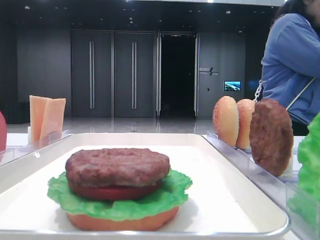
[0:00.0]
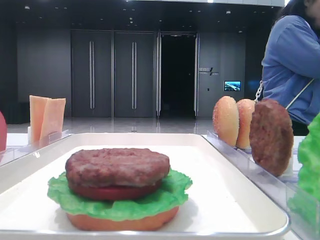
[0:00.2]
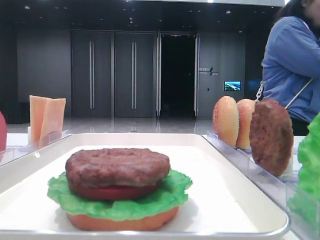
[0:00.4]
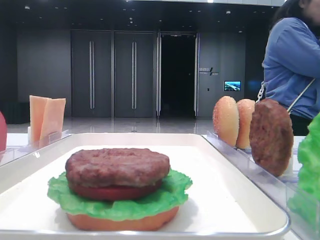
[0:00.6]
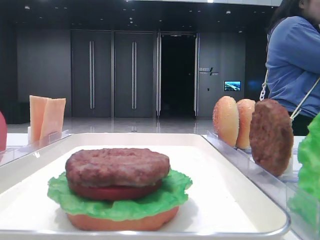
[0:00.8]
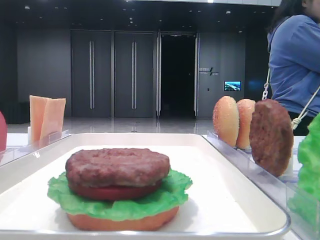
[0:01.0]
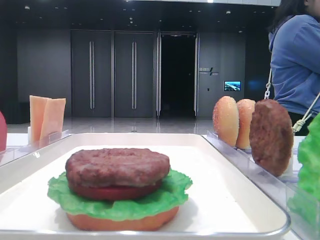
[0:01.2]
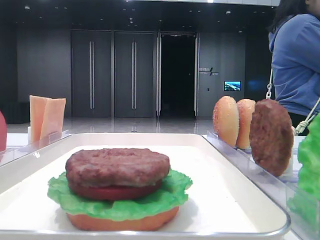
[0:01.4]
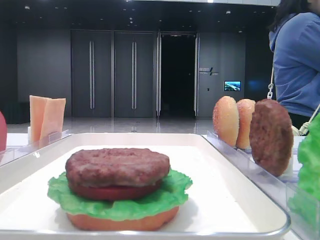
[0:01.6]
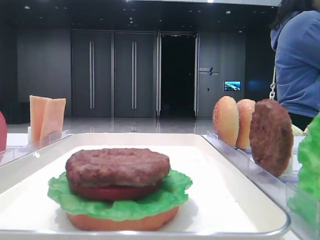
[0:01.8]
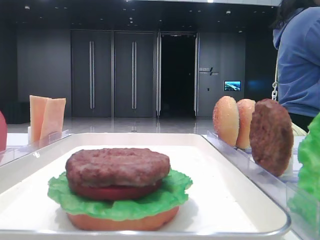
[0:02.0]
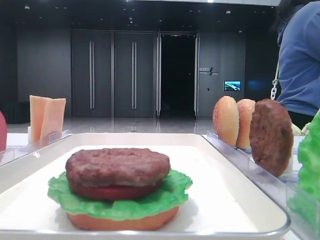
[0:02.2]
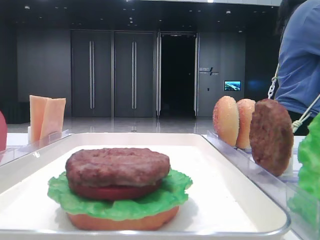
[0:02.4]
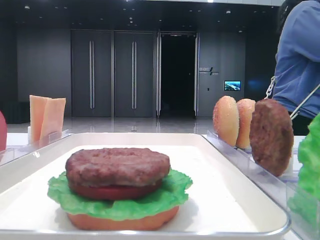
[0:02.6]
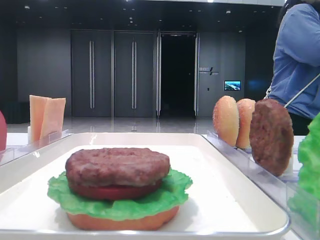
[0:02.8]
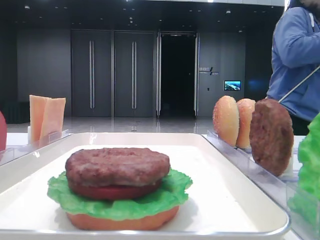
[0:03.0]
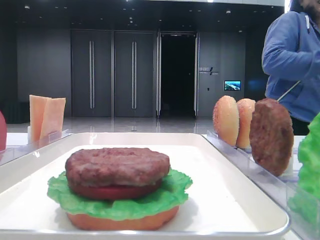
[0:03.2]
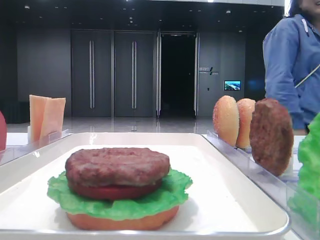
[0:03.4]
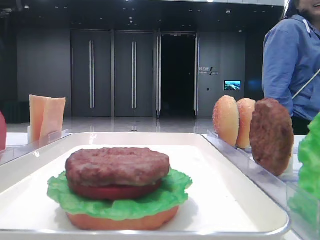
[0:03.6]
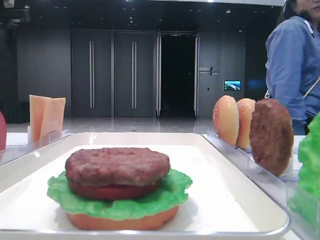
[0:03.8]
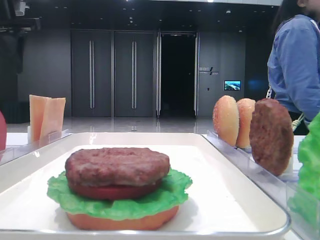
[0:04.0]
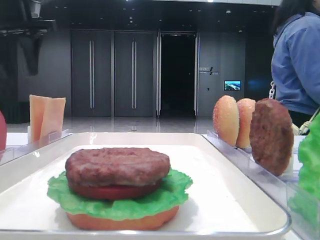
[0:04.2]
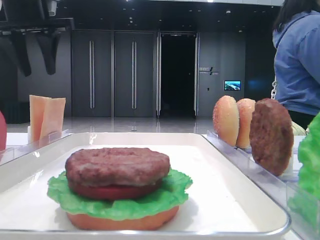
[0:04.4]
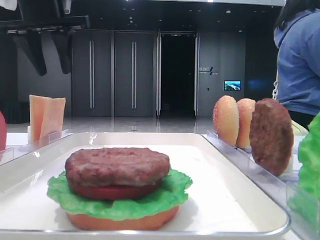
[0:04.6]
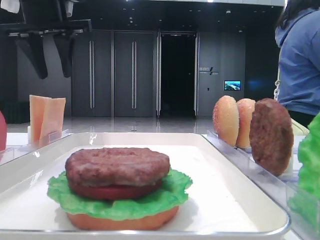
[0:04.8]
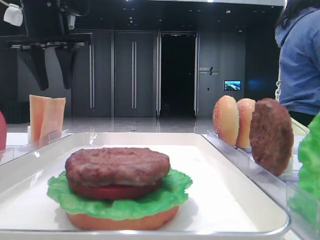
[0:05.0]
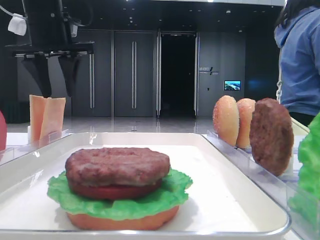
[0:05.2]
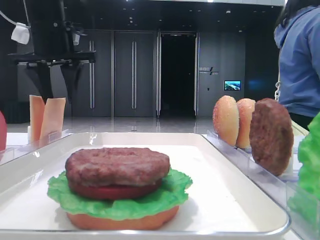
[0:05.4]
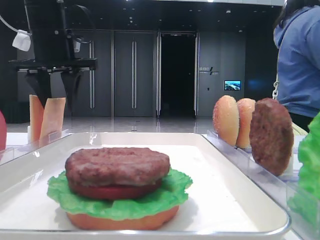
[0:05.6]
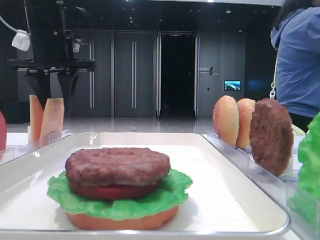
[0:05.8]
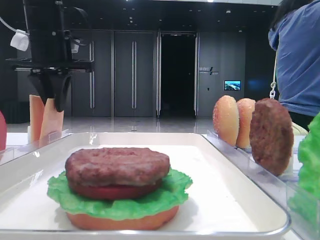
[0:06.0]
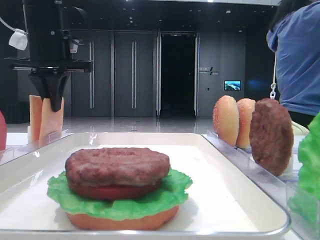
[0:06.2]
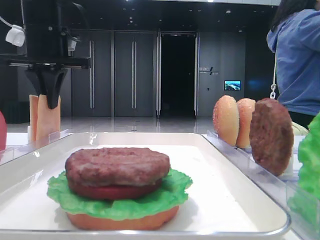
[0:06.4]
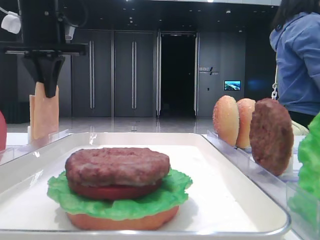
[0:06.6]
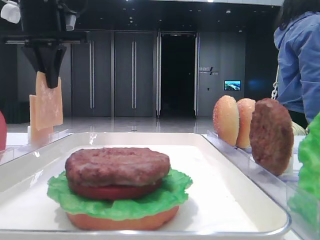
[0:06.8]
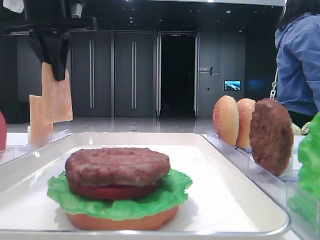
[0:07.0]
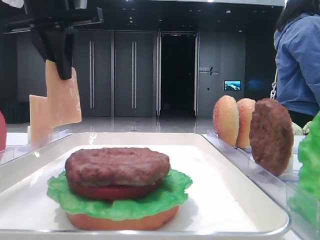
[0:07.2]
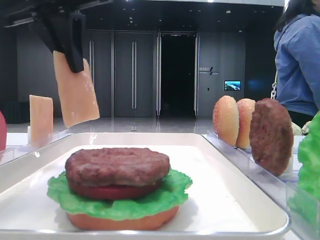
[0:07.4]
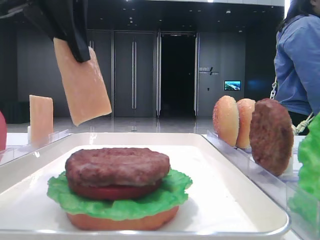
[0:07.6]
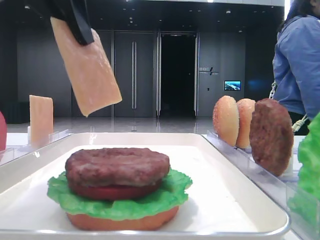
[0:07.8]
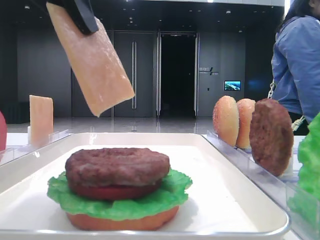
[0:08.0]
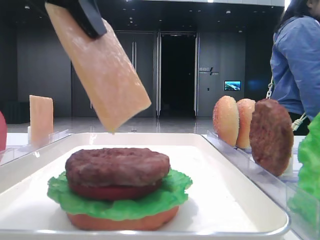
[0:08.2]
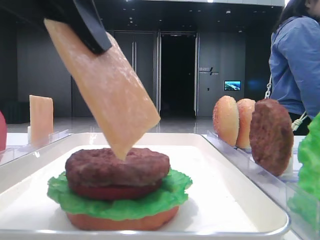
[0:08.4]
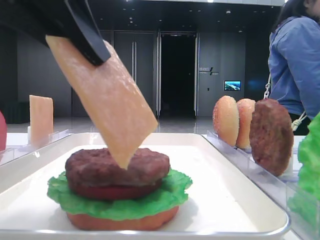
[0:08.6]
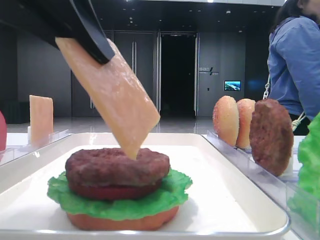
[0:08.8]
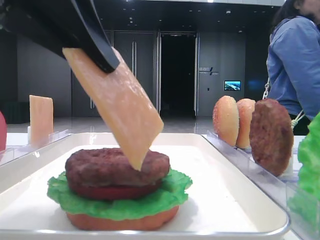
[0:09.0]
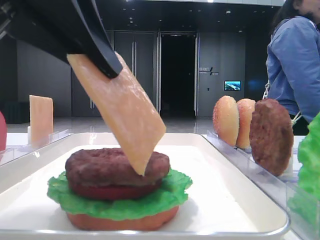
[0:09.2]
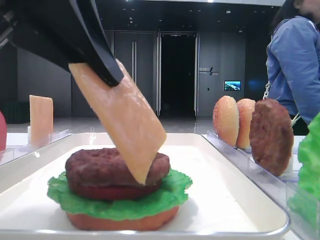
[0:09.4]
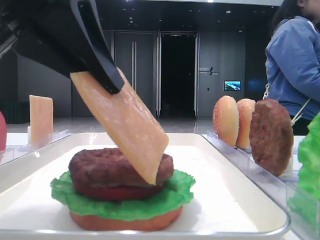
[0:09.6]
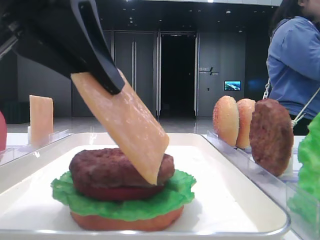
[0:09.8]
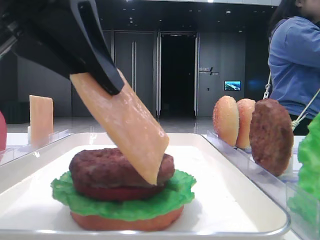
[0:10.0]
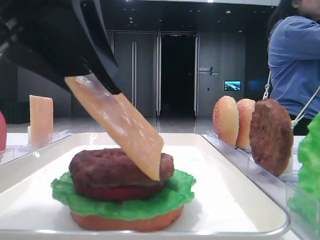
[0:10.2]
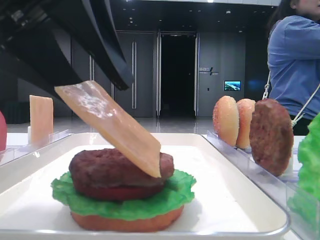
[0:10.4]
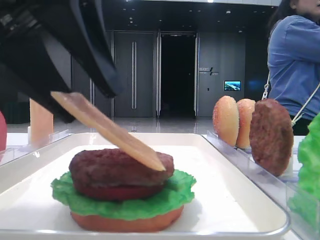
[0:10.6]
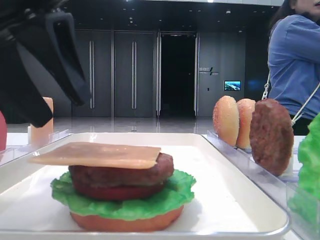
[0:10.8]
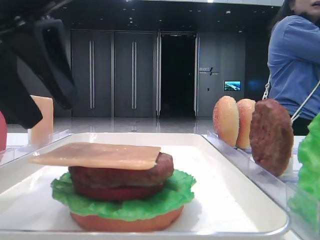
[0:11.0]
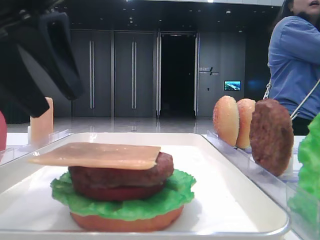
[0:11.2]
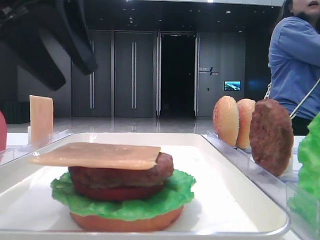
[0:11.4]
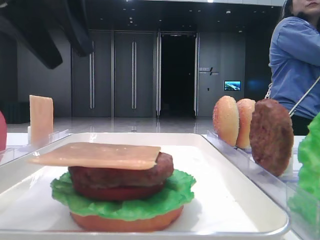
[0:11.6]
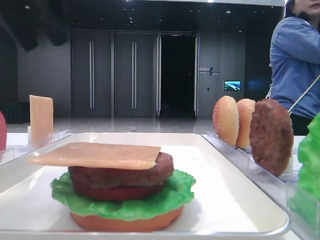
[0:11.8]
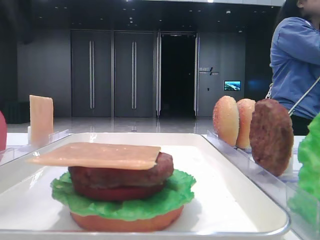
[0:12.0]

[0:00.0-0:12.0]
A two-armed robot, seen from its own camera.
Step, 0:00.0 to 0:06.0: Pick up the cheese slice with the left hand.
Step, 0:06.4 to 0:10.6: Place the cheese slice on the patty with the left hand.
0:03.0 to 0:04.4: The left gripper heads forward and to the right, covering roughly 15 cm.
0:04.4 to 0:06.0: The left gripper is displaced downward by approximately 5 cm, and closes.
0:06.0 to 0:07.6: The left gripper goes about 15 cm backward.
0:07.6 to 0:09.0: The left gripper is displaced backward by about 10 cm.
0:09.0 to 0:10.4: The left gripper opens its fingers.
0:10.4 to 0:12.0: The left gripper heads forward, to the left and upward, covering roughly 15 cm.

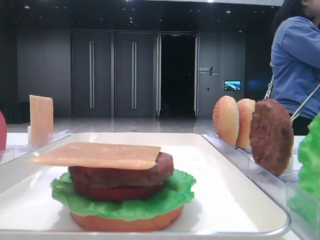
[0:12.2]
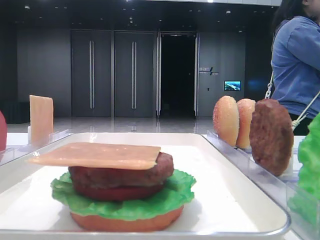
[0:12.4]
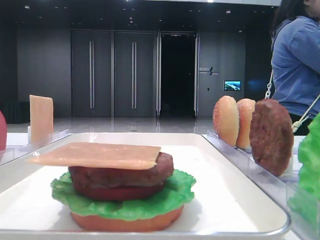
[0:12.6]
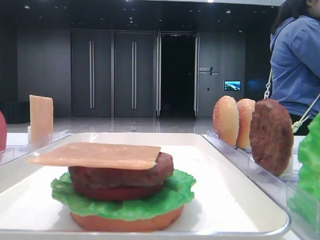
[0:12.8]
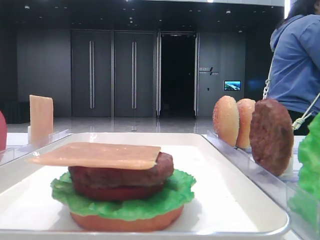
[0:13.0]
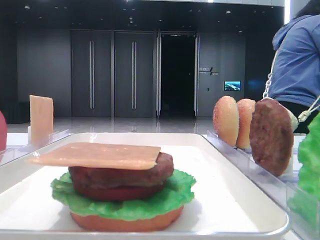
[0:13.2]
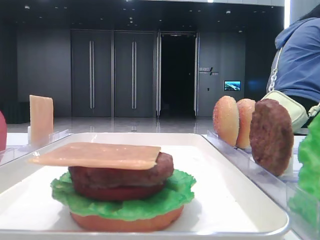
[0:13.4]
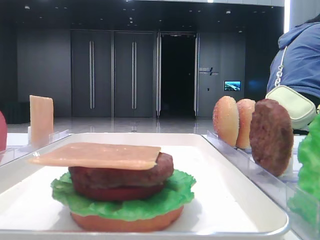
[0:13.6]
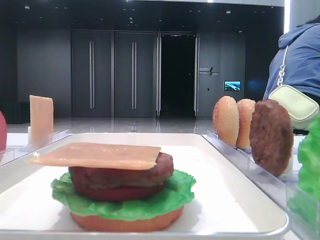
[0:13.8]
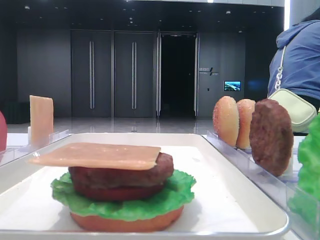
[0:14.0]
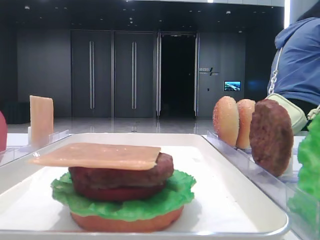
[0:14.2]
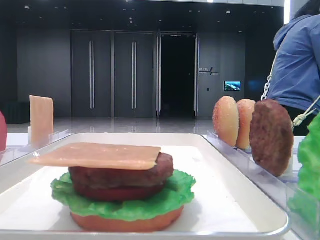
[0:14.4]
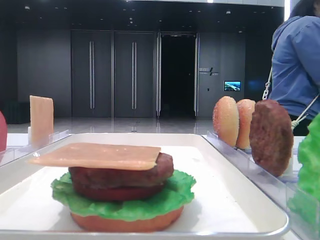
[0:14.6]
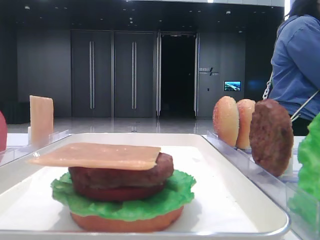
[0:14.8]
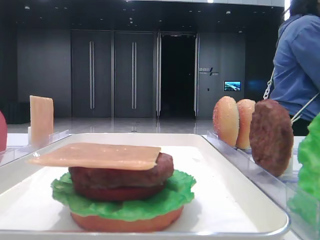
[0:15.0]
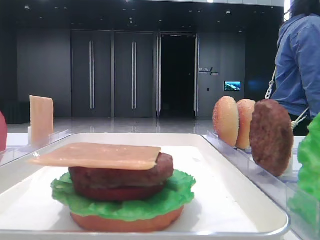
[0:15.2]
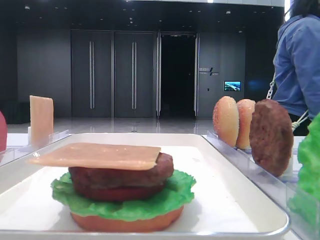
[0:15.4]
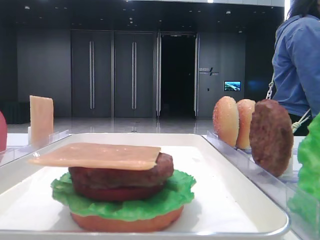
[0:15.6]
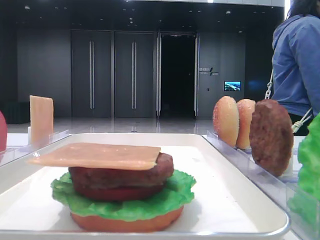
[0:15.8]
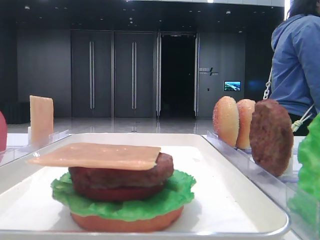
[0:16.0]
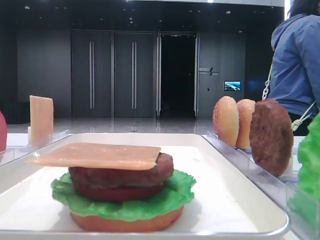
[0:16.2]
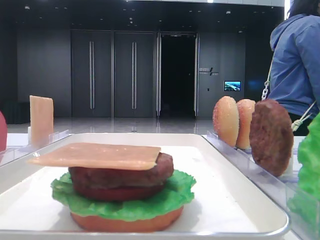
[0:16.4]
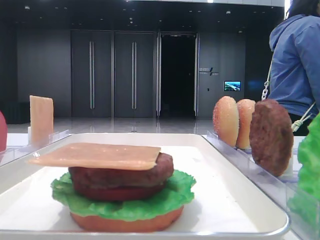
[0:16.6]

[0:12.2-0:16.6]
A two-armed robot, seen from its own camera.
0:12.2 to 0:13.6: The left gripper shifts about 15 cm backward and to the left.
0:15.2 to 0:16.6: Both grippers stay about where they are.

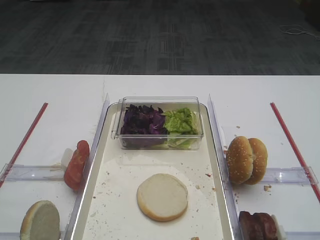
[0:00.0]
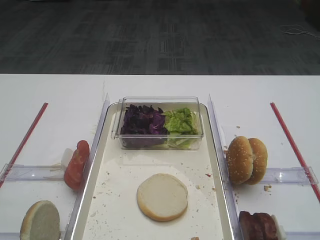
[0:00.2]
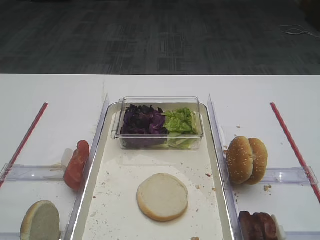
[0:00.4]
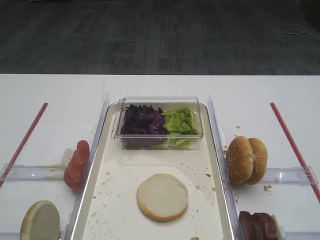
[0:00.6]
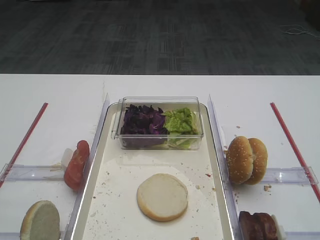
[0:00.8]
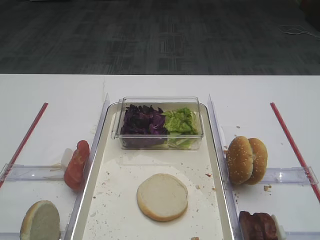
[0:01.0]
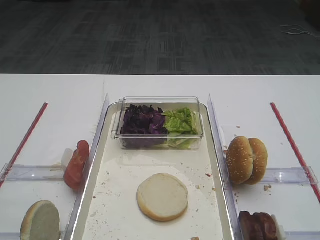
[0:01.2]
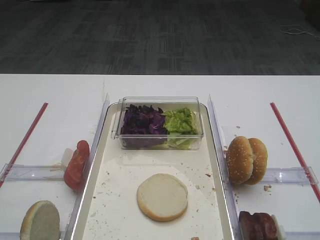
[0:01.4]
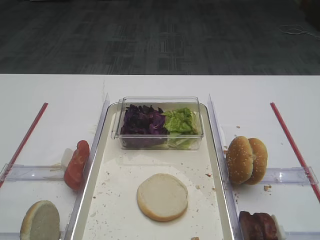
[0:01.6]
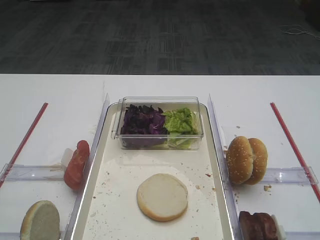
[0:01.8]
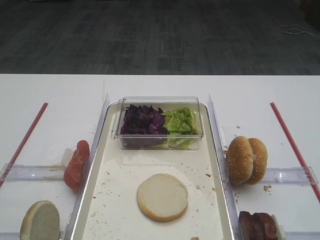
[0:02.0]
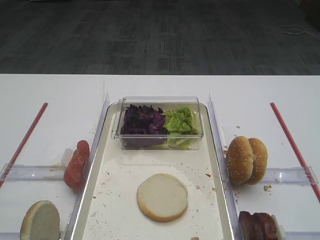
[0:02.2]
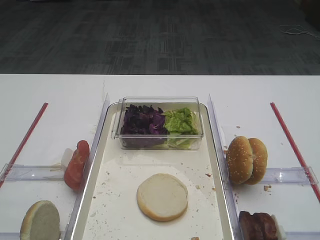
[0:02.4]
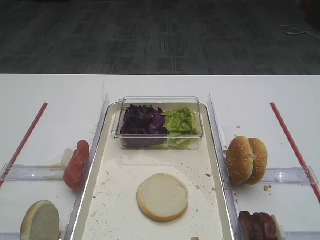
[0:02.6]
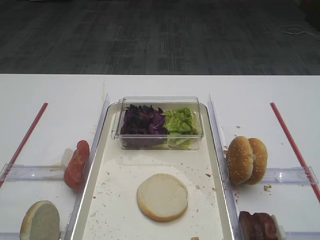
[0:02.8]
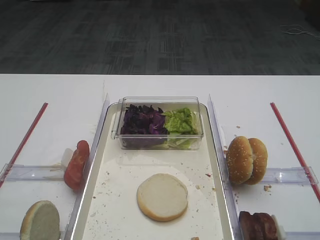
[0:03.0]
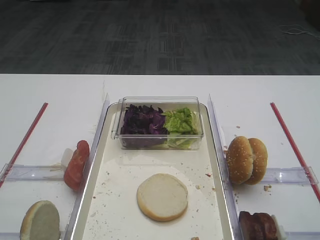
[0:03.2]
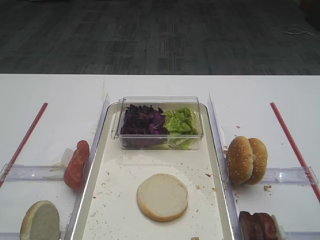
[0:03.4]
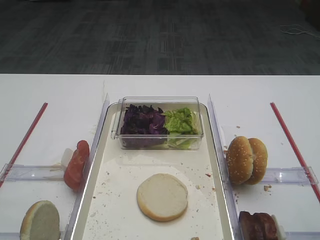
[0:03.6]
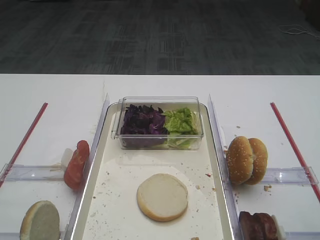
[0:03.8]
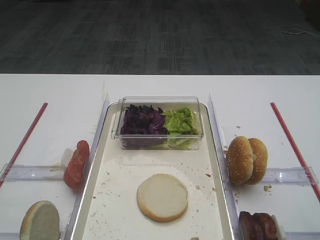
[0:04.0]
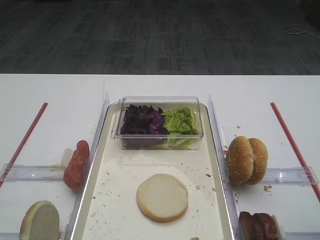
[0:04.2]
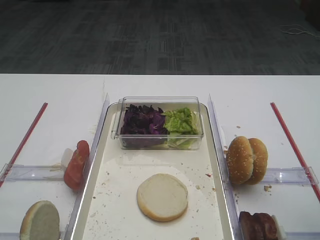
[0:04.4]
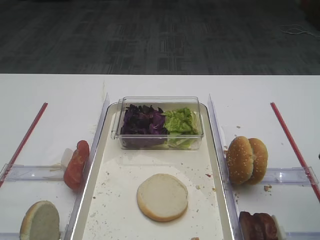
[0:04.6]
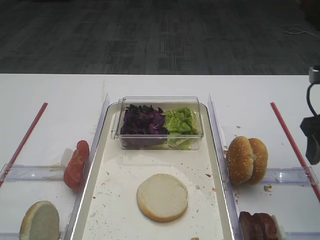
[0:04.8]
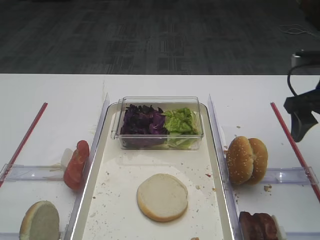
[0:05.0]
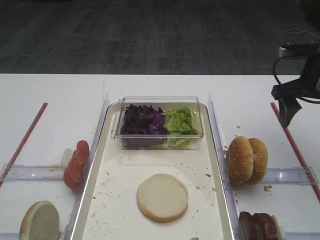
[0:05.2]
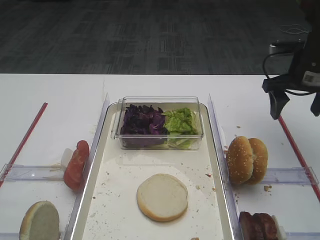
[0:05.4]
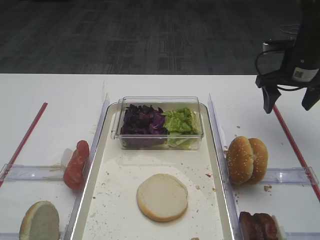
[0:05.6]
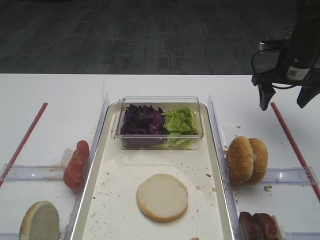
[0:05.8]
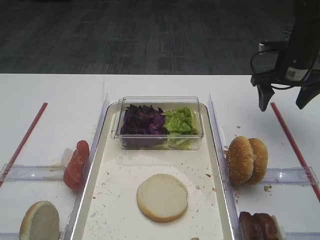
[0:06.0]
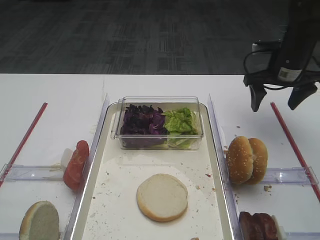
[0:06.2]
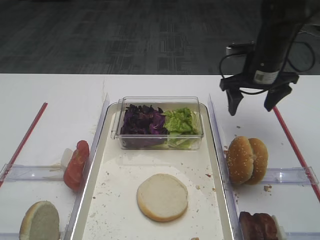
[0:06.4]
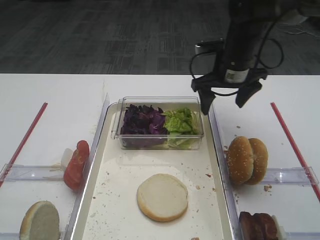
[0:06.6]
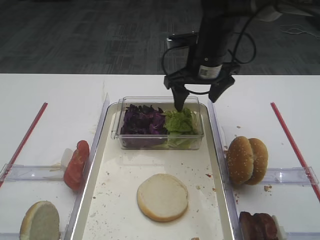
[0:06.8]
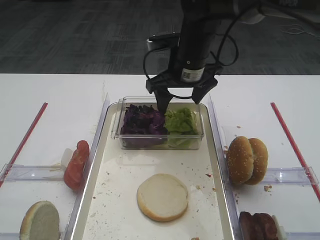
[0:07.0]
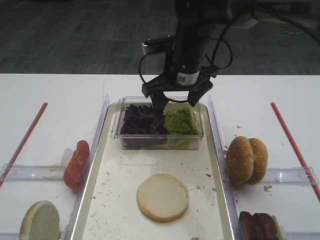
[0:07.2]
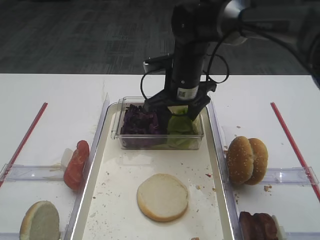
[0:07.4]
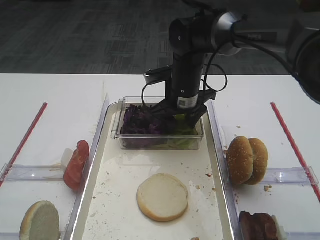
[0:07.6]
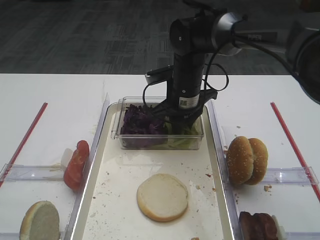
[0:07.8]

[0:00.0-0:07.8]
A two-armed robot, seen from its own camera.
0:03.2 to 0:04.6: The right gripper moves forward, approximately 10 cm.
0:04.6 to 0:06.2: The right gripper shifts approximately 25 cm forward.
0:06.2 to 0:07.8: The right gripper shifts some 20 cm to the left, and closes up.
